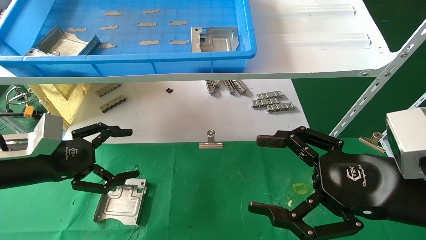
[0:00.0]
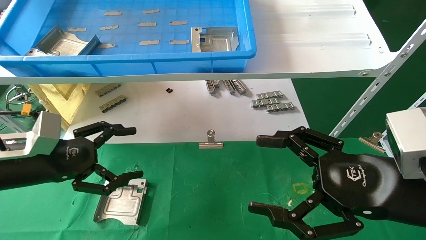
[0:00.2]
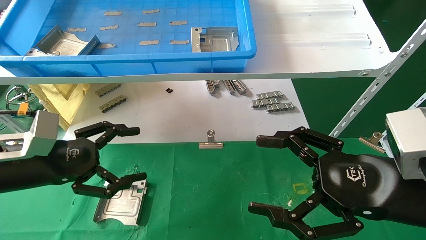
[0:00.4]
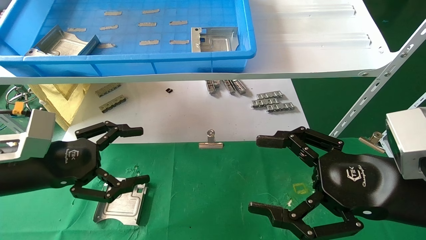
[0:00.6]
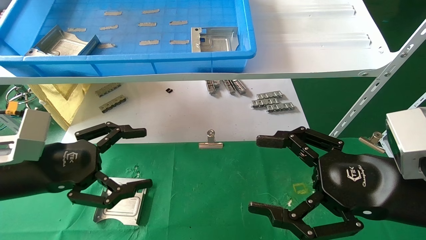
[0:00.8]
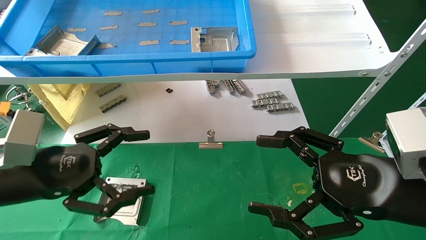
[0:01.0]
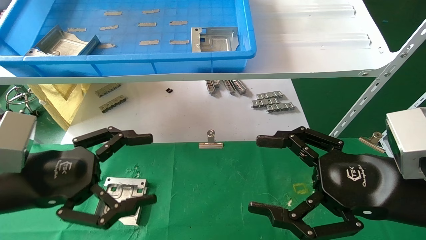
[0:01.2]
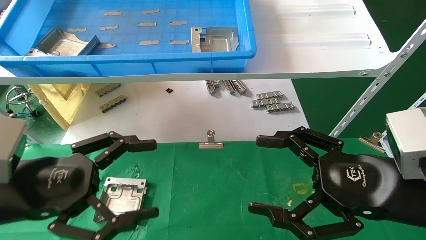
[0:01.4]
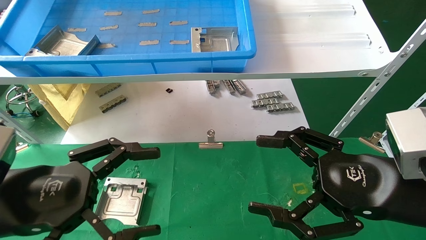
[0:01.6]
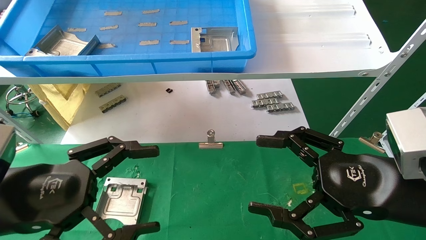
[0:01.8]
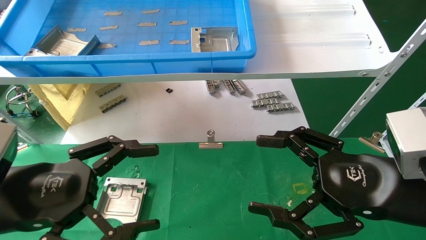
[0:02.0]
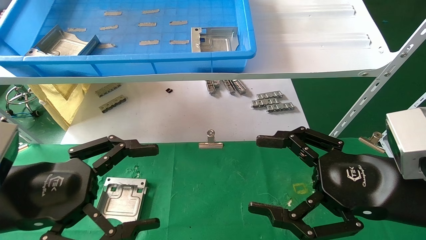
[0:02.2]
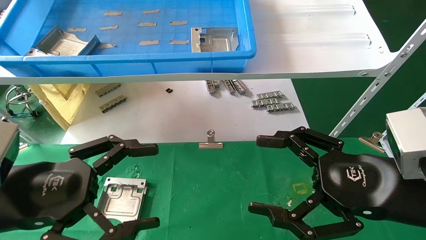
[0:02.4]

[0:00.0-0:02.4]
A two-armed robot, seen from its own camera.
Task of the whole recording: use the mechanical arm to pick up the parts and place them on the table.
0:00.0 to 0:01.2: The left gripper heads backward and to the right, covering some 10 cm.
0:01.2 to 0:02.4: The grippers stay close to where they were, moving slightly.

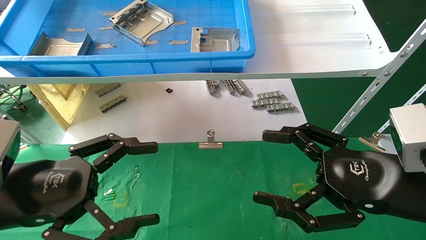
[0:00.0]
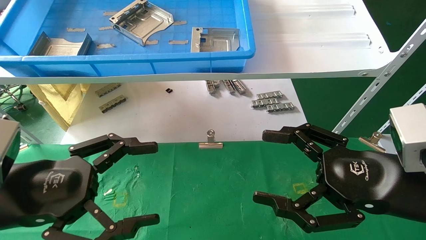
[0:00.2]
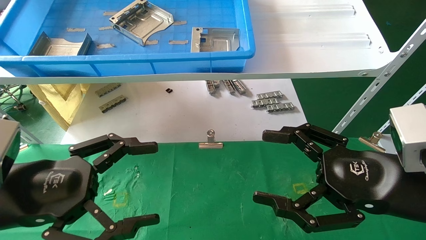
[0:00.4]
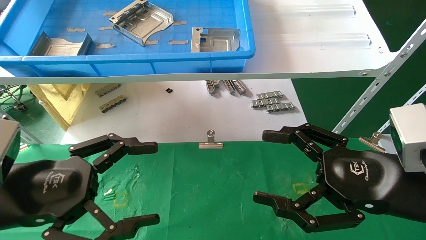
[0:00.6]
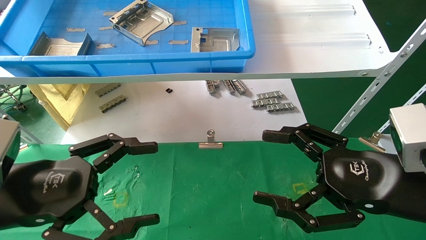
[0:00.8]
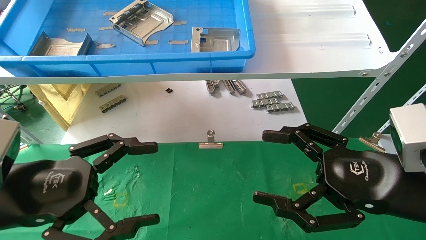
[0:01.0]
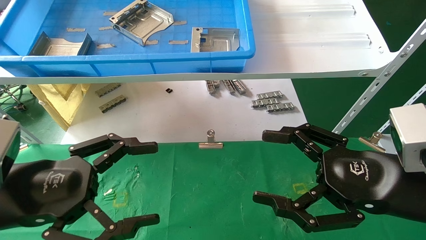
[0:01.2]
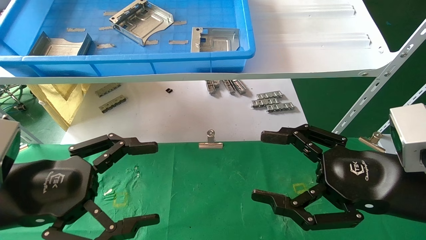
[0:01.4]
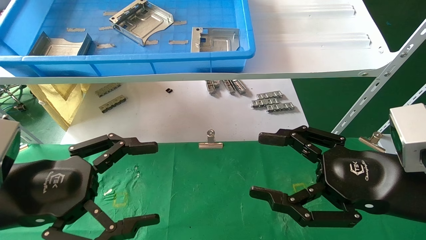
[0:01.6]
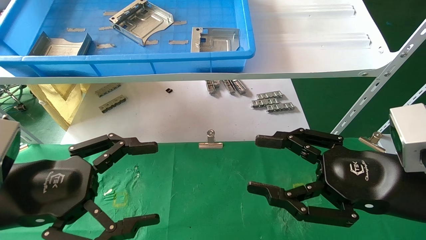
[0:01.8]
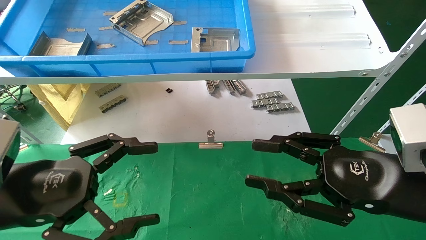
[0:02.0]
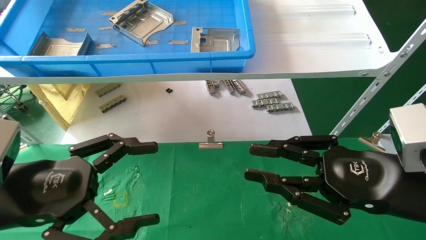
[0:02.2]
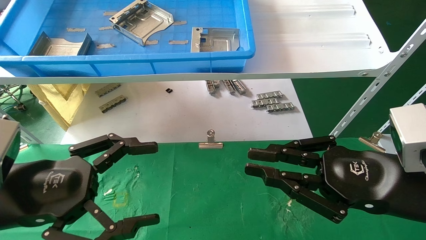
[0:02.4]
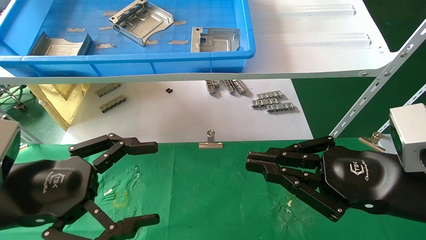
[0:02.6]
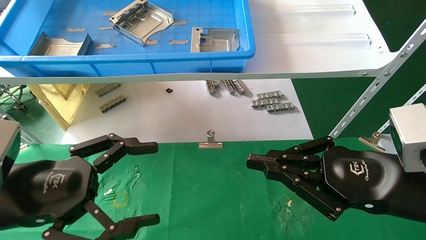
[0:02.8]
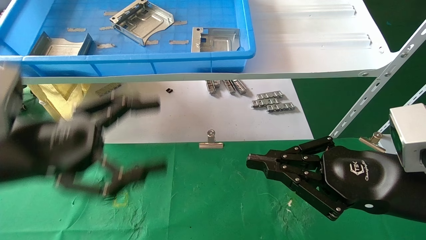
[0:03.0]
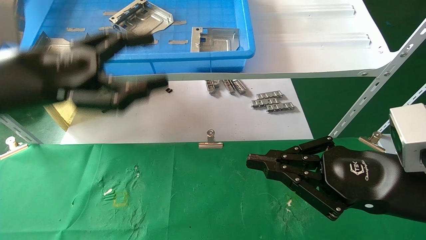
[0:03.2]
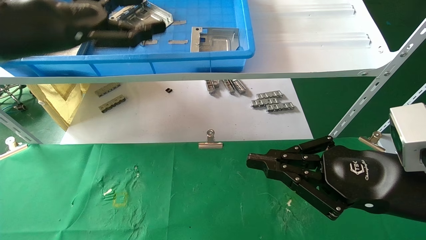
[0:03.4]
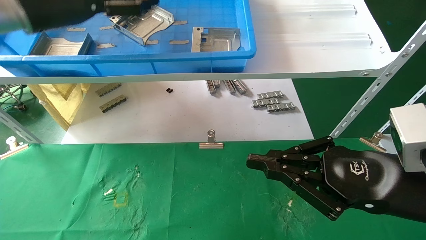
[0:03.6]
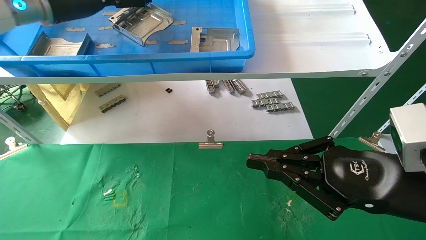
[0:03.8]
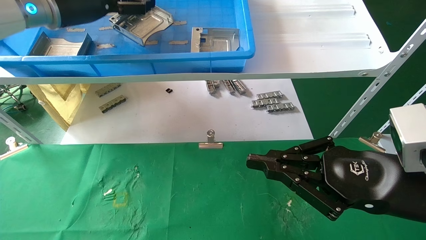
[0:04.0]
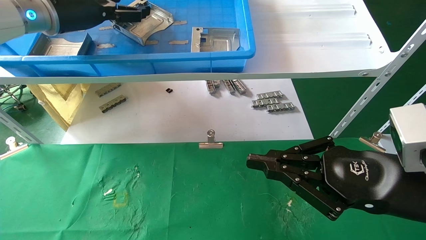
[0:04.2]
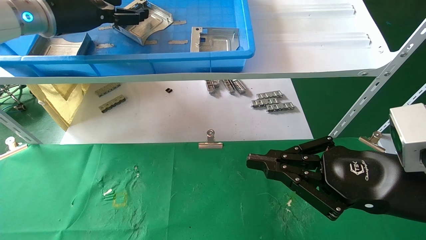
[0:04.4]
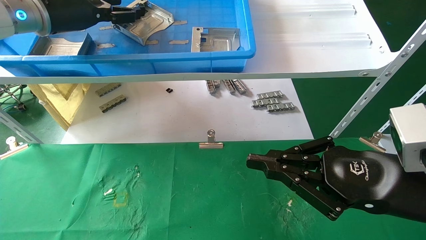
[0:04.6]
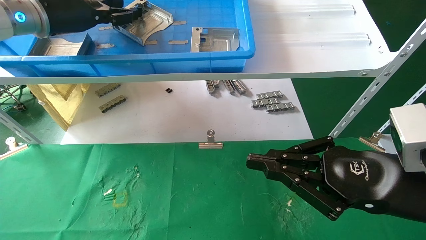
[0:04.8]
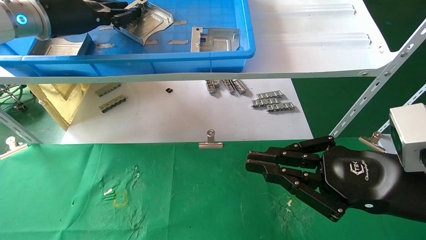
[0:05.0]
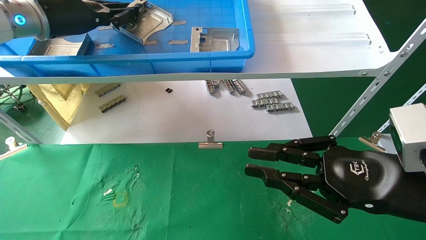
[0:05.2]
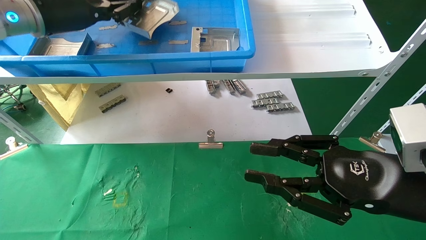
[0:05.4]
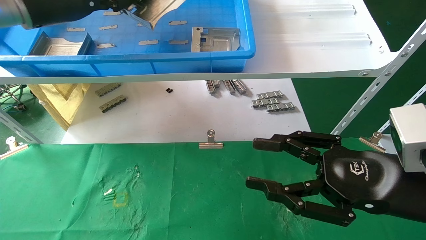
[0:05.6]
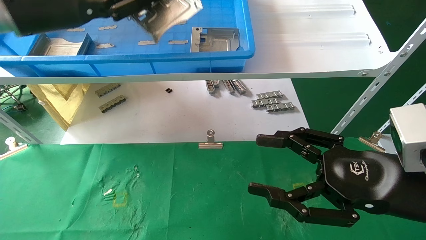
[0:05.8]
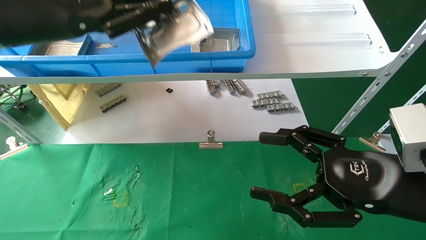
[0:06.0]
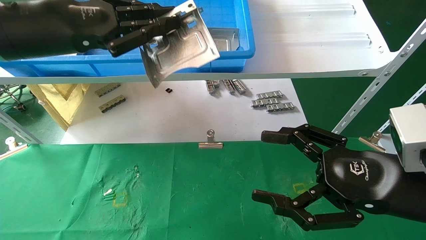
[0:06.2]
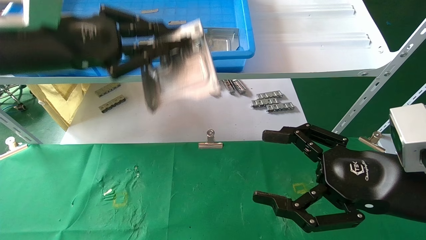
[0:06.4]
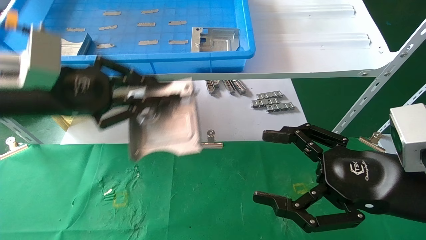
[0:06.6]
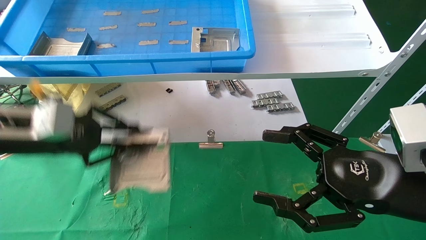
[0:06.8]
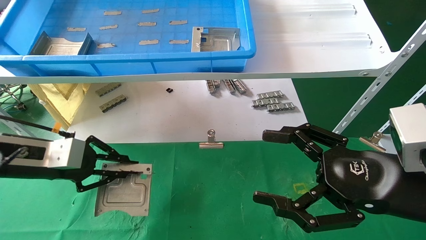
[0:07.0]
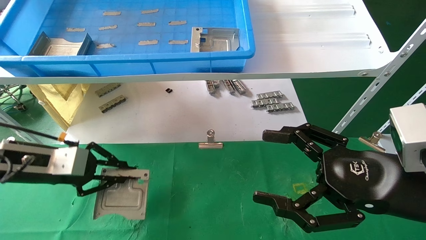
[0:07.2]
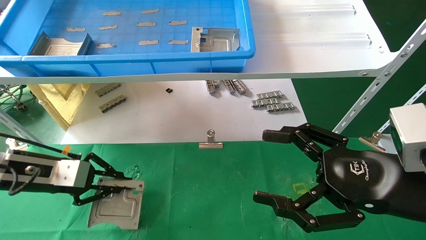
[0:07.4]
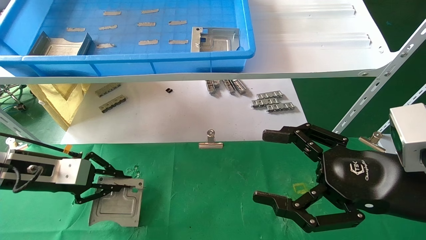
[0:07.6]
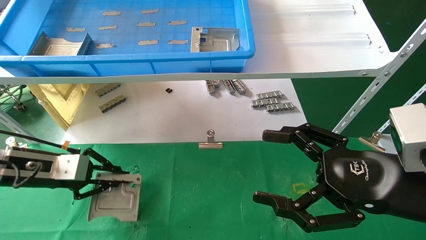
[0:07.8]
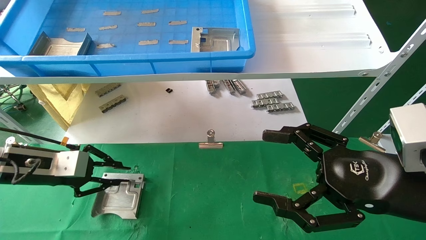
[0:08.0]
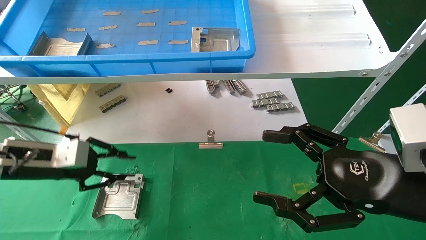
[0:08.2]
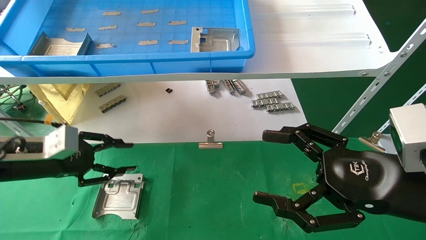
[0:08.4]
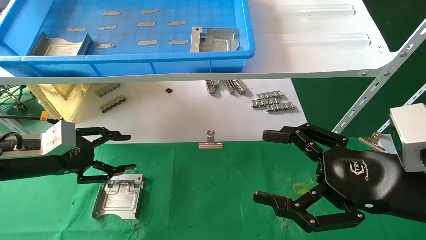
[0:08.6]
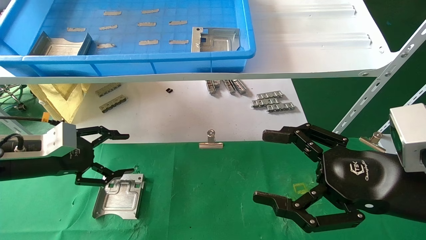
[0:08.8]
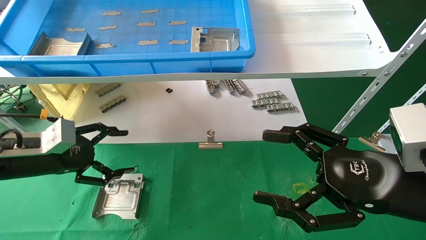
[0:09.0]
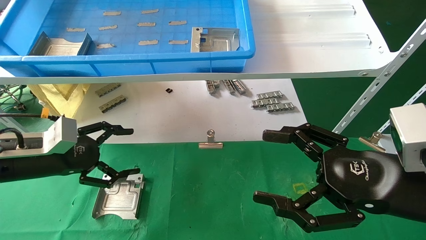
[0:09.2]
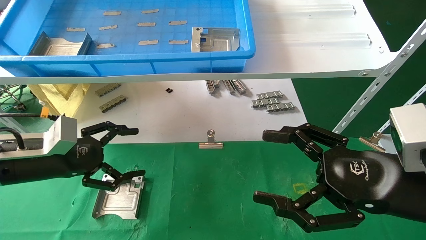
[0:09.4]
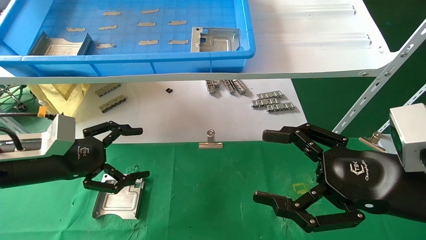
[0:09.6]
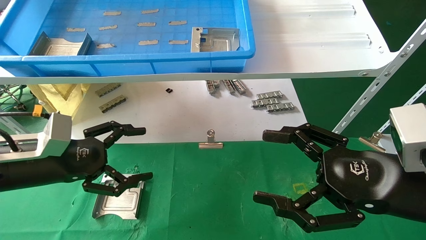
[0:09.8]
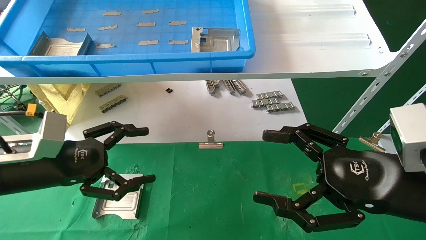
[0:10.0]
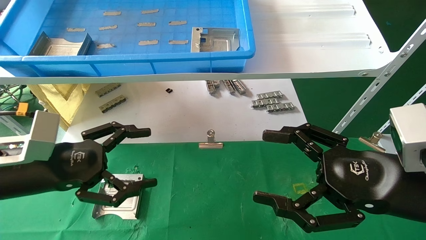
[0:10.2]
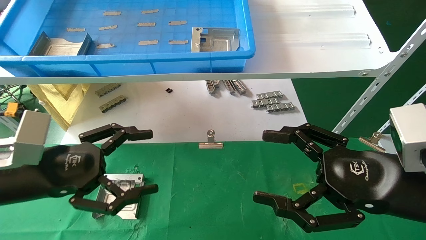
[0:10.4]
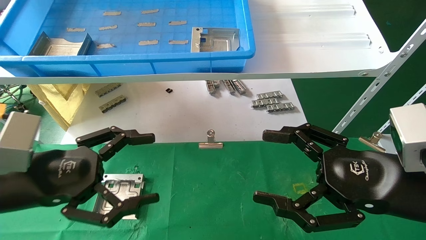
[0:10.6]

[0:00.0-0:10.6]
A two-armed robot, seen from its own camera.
Task of the whole recording: use the mechanical arm to pick up the parts and place them on the table.
Step, 0:03.4 to 0:05.2: Pick up the hard drive bracket from the feeding area.
Step, 0:05.4 to 0:08.2: Place the hard drive bracket into the box.
0:00.0 to 0:01.6: Both grippers stay put.
0:01.6 to 0:03.0: The right gripper closes up, while the left gripper is displaced upward by roughly 5 cm.
0:03.0 to 0:04.6: The left gripper is displaced forward and upward by about 25 cm.
0:04.6 to 0:06.0: The left gripper heads backward, covering some 10 cm, and closes its fingers; the right gripper opens.
0:06.0 to 0:07.6: The left gripper goes some 25 cm downward.
0:07.6 to 0:09.0: The left gripper opens.
0:09.0 to 0:10.6: The left gripper travels backward and to the right by roughly 10 cm.
